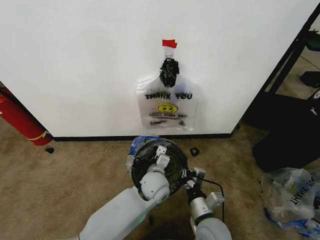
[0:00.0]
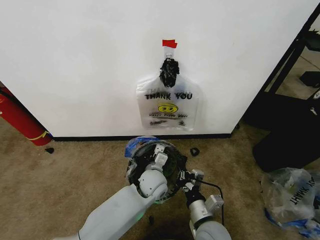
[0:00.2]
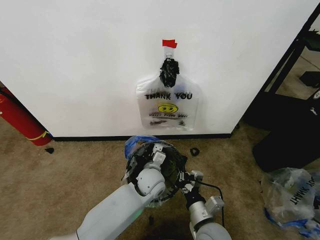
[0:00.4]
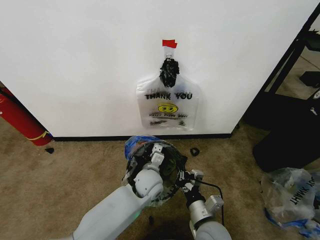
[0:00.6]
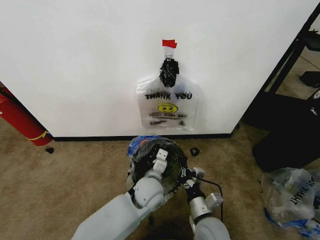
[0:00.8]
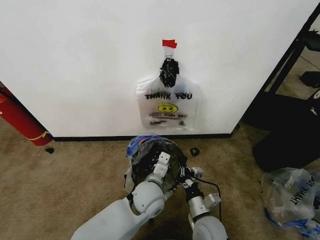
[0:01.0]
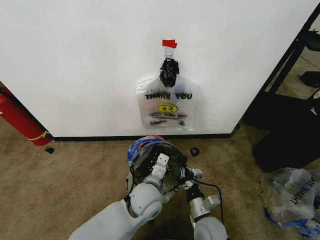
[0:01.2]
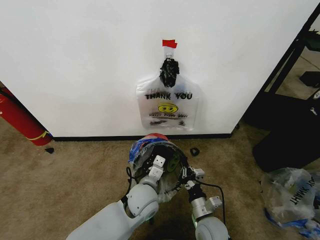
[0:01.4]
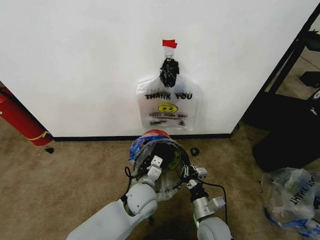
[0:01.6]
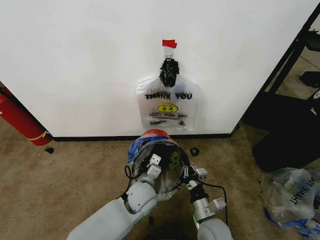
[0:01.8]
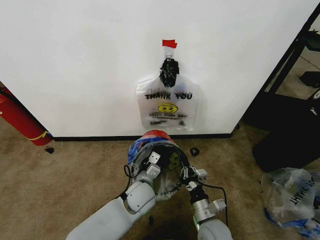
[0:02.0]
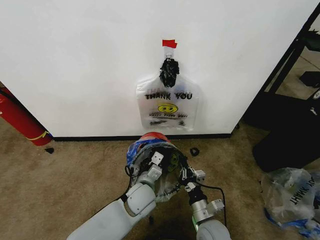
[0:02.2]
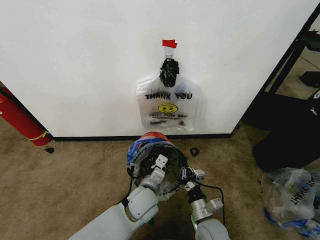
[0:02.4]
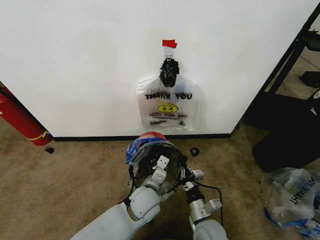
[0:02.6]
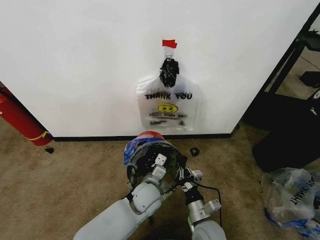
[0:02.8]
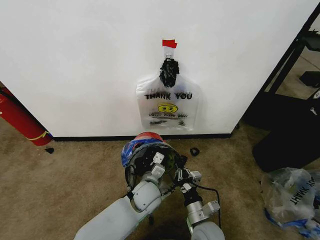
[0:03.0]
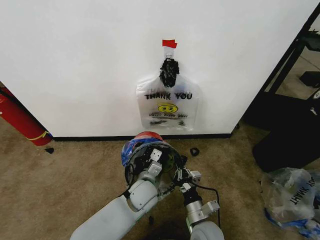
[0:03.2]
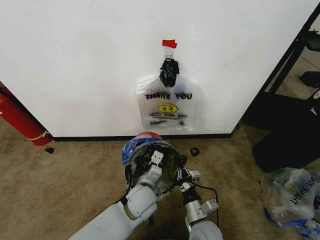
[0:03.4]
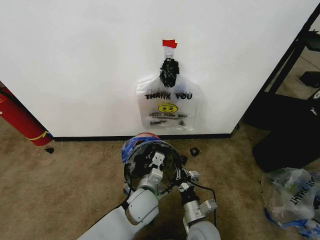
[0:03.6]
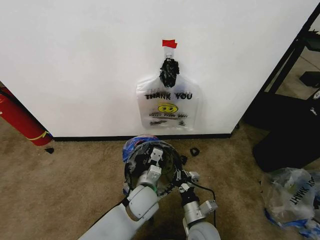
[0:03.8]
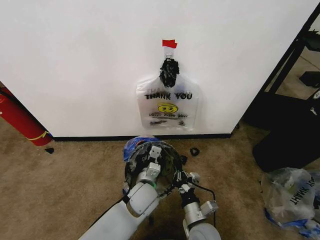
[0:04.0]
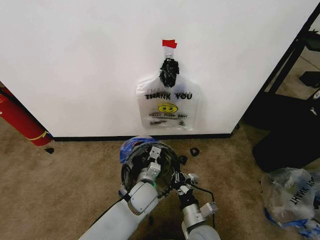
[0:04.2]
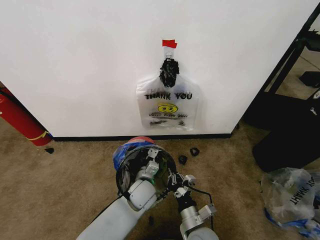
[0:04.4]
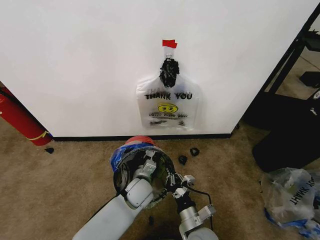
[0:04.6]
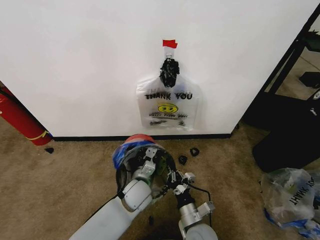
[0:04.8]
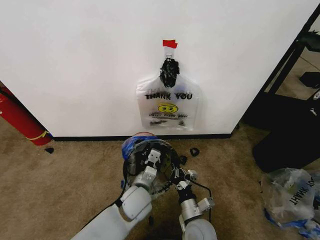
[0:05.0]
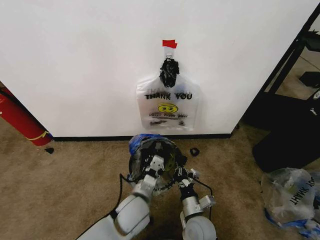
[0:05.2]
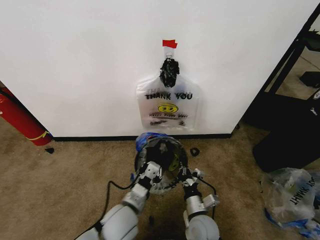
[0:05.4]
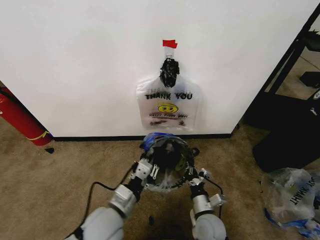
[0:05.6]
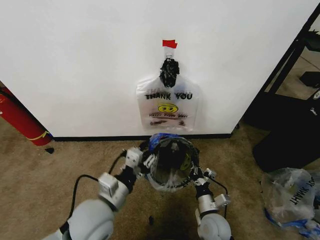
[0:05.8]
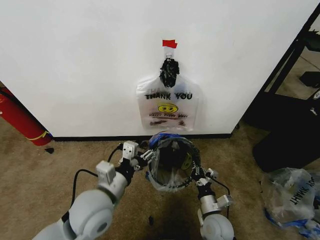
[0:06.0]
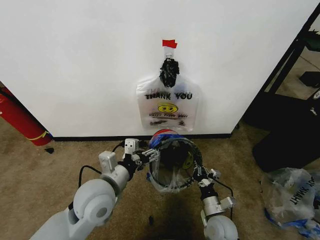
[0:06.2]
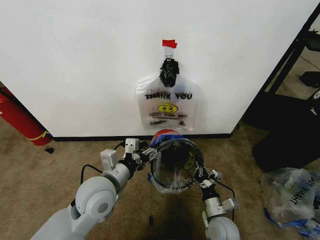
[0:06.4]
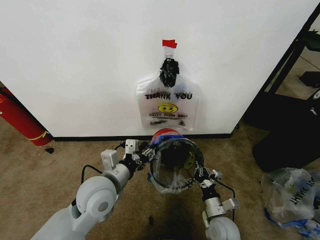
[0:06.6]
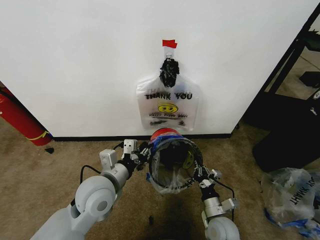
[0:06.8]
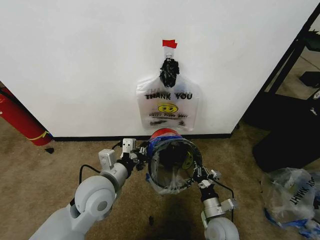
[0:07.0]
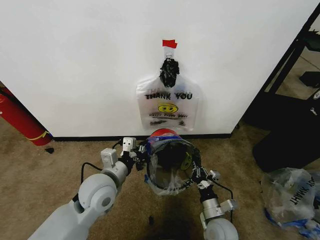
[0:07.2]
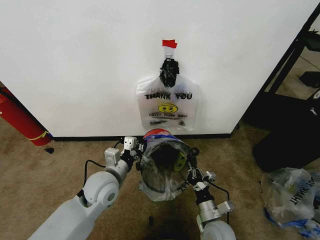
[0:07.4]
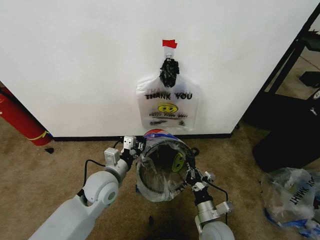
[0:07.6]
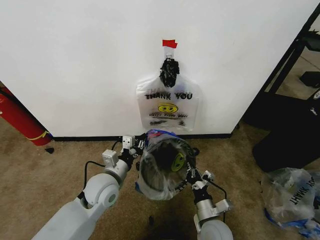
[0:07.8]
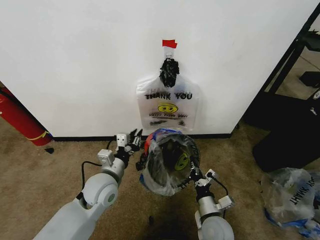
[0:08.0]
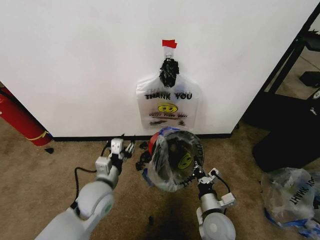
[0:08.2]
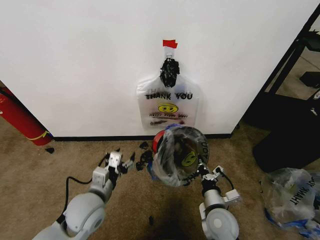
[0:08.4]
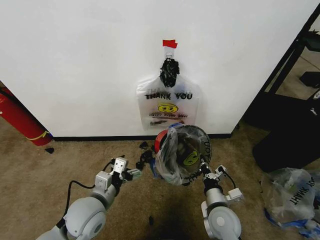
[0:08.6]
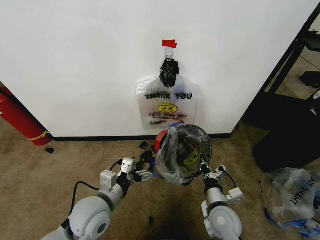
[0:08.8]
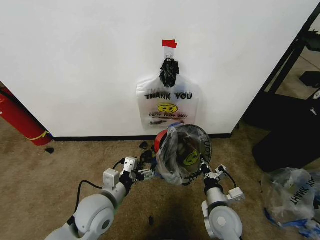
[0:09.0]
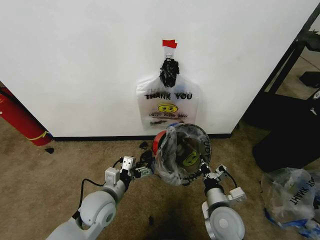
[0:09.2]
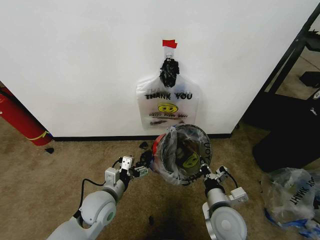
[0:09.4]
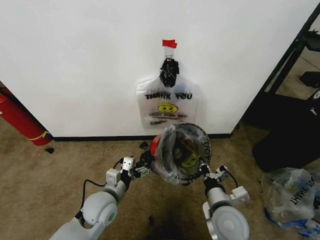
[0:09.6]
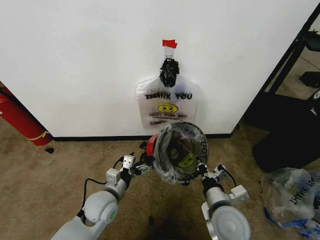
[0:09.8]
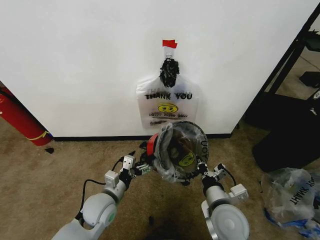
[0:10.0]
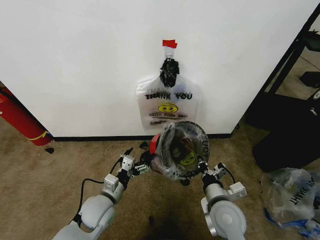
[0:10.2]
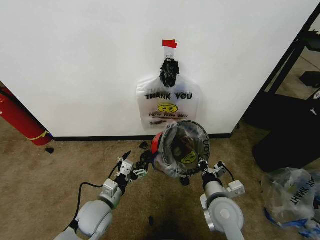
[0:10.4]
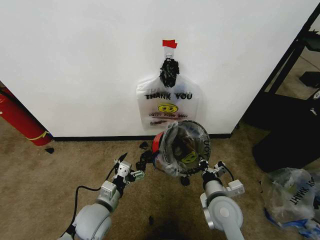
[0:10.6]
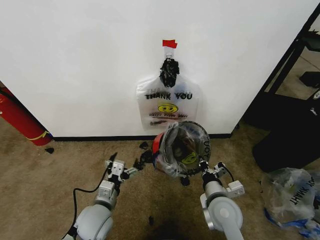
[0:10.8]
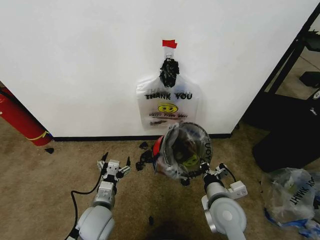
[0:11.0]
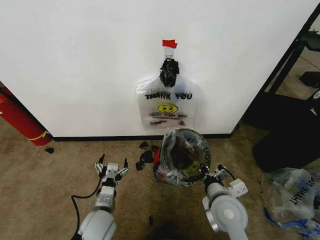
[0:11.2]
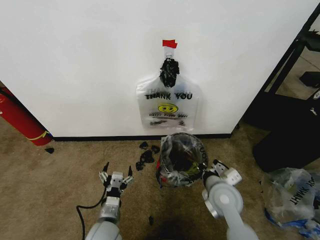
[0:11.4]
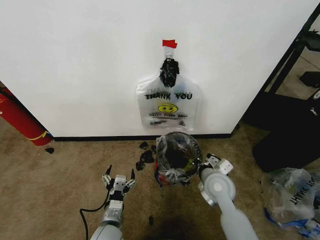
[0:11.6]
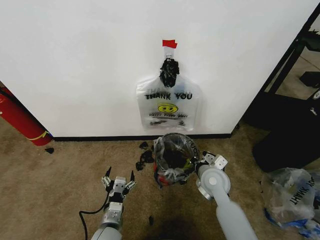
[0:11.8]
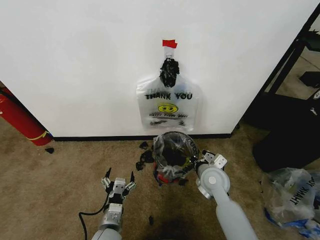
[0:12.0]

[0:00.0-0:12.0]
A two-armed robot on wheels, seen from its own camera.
Task of the whole recording: Pick up the garbage bag from the wall and place it over the trash bin.
0:00.0 to 0:01.6: The left gripper ends up roughly 5 cm from where it was. The right gripper travels downward by some 5 cm.
0:01.6 to 0:03.0: The grippers stay close to where they were, moving slightly.
0:03.0 to 0:04.4: The grippers move only a little.
0:04.4 to 0:06.0: The left gripper heads upward, to the left and backward, covering some 20 cm, and opens, while the right gripper goes about 5 cm to the right.
0:06.0 to 0:07.6: The left gripper is displaced forward and downward by roughly 10 cm, and closes up.
0:07.6 to 0:09.0: The right gripper heads upward, covering approximately 5 cm; the left gripper is displaced backward by some 5 cm, and opens.
0:09.0 to 0:10.4: The left gripper goes approximately 5 cm downward.
0:10.4 to 0:12.0: The right gripper moves forward, roughly 10 cm. The left gripper heads backward, covering some 5 cm.

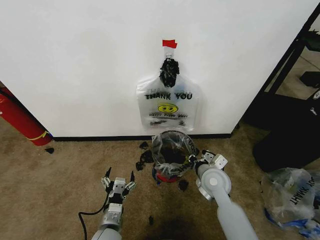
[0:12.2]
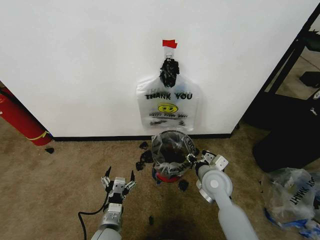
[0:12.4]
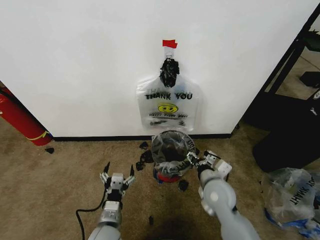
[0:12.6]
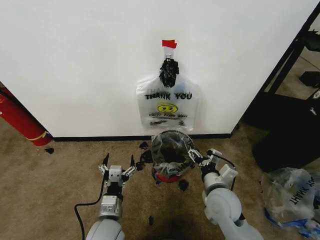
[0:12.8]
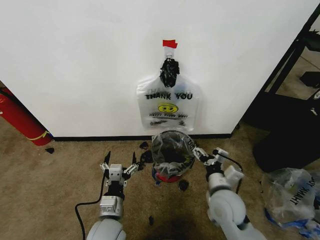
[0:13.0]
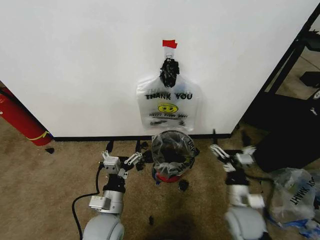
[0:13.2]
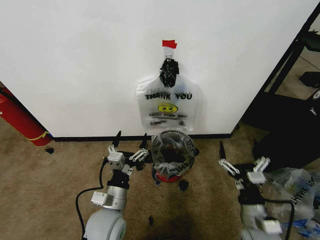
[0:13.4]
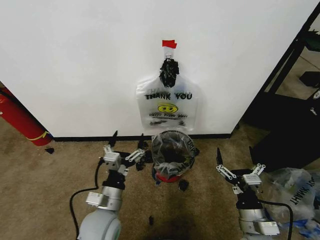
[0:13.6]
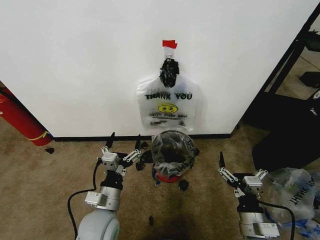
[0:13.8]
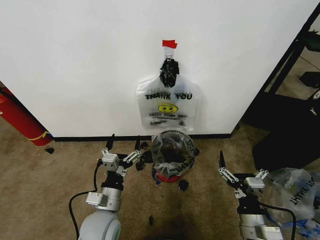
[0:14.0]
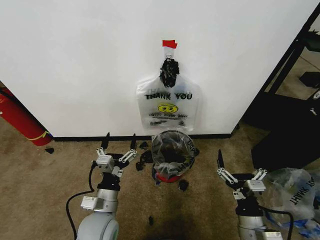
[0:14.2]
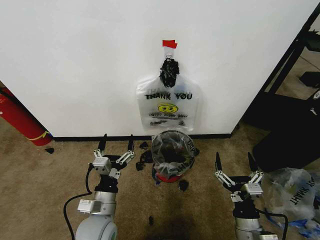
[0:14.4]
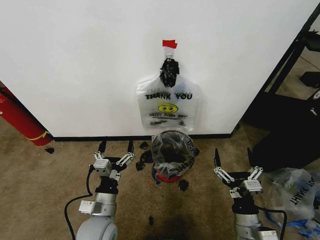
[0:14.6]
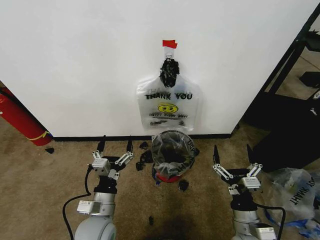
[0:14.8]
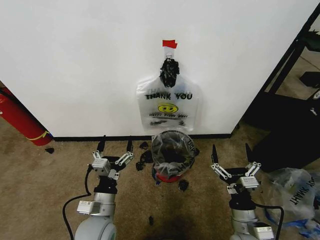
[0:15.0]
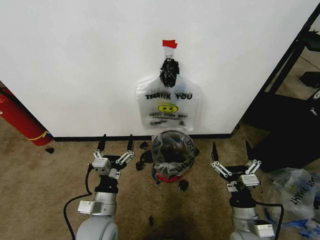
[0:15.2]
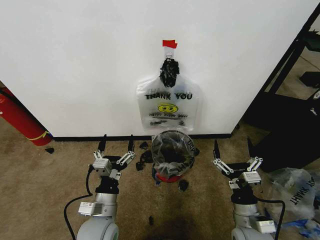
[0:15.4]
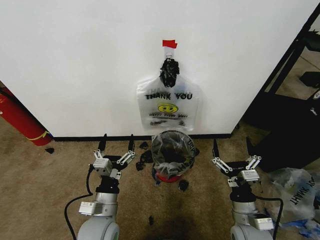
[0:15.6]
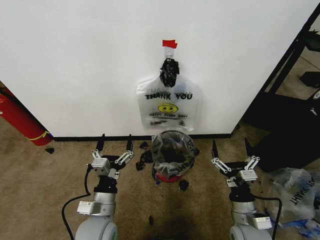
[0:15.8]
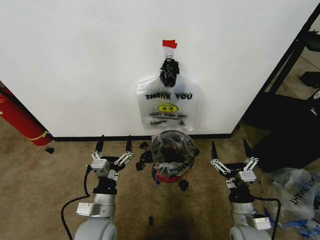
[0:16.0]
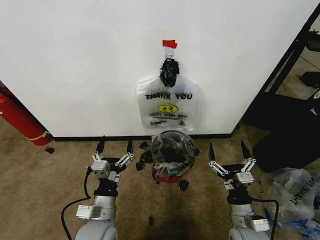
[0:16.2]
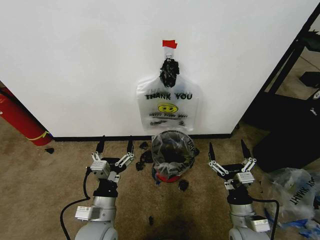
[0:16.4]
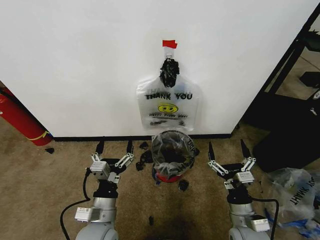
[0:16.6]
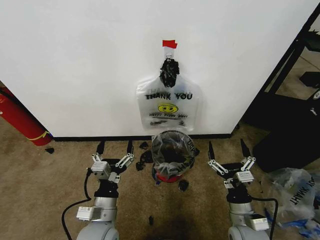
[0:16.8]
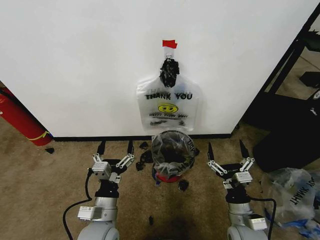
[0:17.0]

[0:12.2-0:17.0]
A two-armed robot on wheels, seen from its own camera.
Task of the whole recording: Pick up the garbage bag from the wall and place it over the trash bin.
0:12.2 to 0:13.8: The right gripper goes some 20 cm backward, and opens. Meanwhile the left gripper travels upward by approximately 10 cm.
0:13.8 to 0:17.0: The grippers make only small movements.

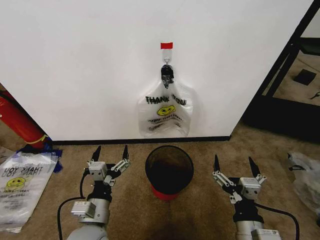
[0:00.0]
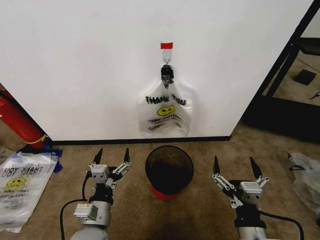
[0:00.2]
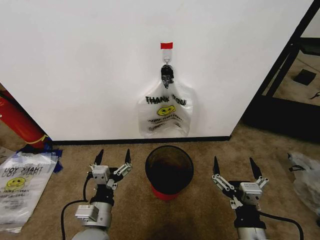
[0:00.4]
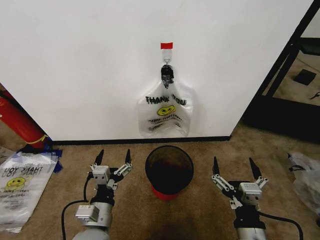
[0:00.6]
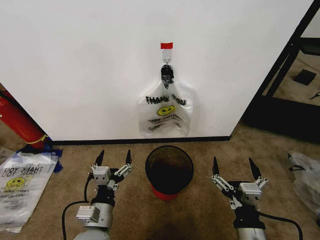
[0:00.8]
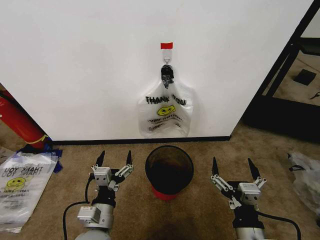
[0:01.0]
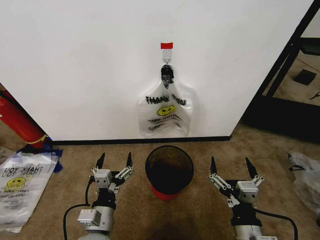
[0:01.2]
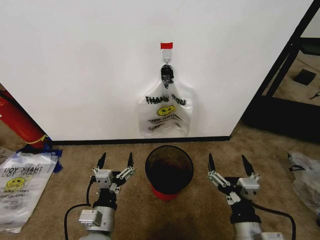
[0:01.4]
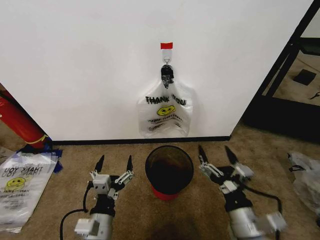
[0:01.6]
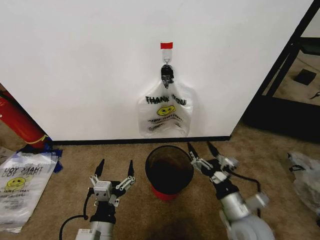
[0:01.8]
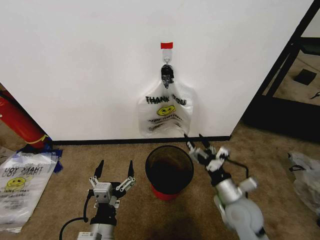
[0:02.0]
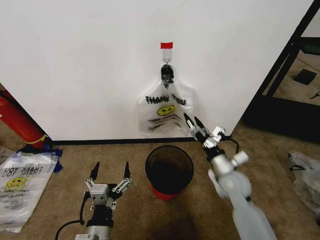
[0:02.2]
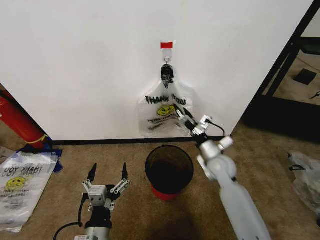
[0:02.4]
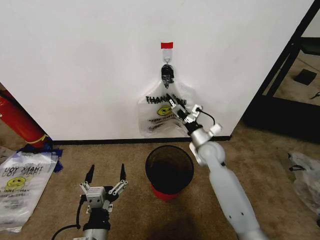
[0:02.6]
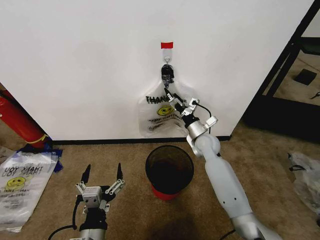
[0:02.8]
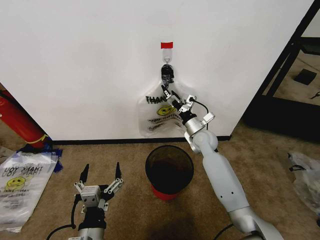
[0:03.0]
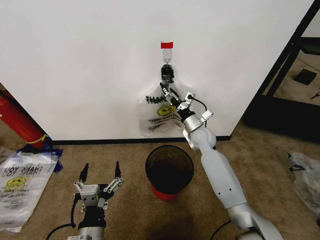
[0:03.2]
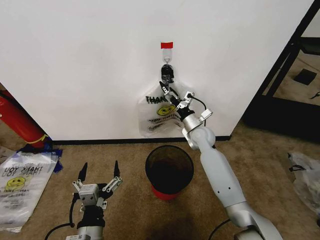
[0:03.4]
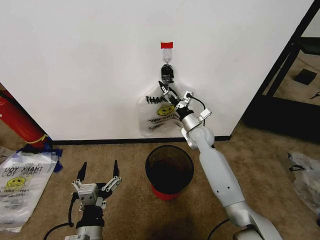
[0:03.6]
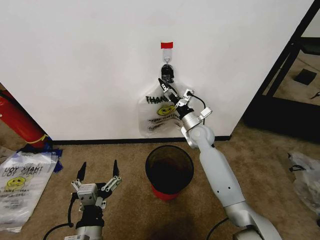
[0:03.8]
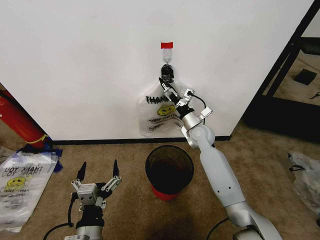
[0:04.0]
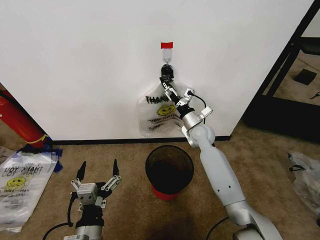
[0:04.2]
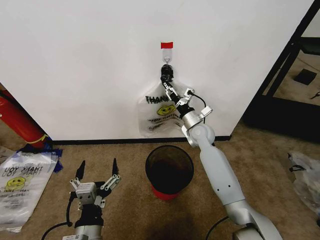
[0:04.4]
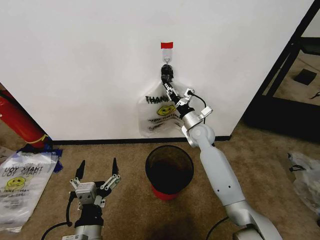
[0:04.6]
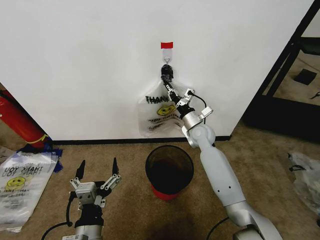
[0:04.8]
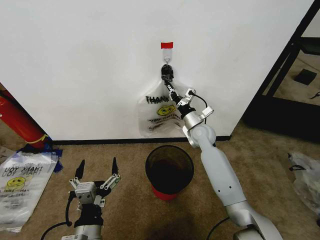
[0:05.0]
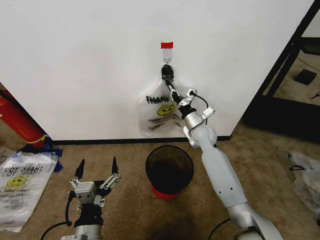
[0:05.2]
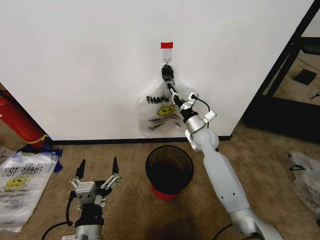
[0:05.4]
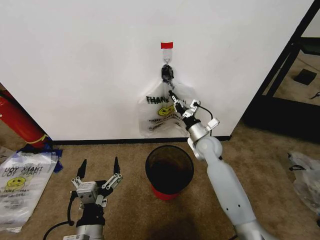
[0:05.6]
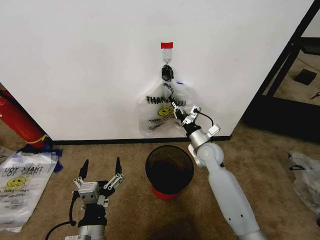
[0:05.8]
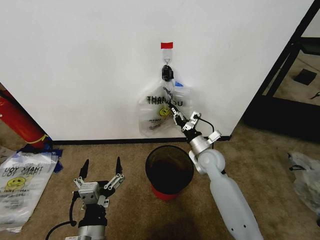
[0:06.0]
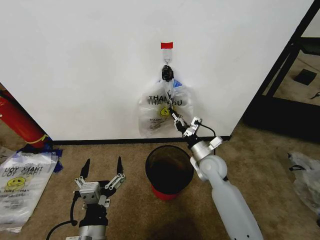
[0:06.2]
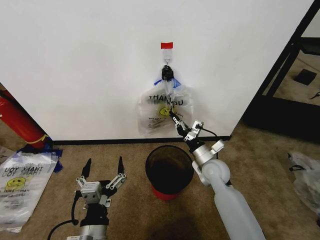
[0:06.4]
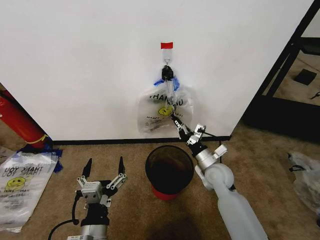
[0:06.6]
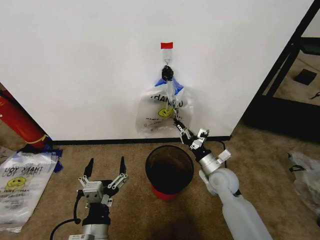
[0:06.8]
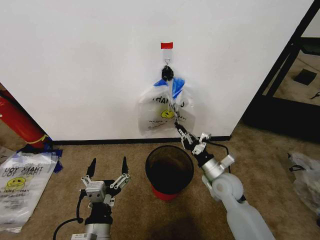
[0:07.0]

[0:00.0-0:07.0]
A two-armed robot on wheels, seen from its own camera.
Task of the whole recording: Pick up the garbage bag from the wall and place it over the trash bin.
0:01.4 to 0:02.8: The left gripper moves backward, approximately 5 cm. The right gripper moves forward, approximately 40 cm.
0:02.8 to 0:04.2: The grippers make only small movements.
0:04.2 to 0:05.6: The right gripper closes.
0:05.6 to 0:07.0: The right gripper moves backward, some 15 cm.
